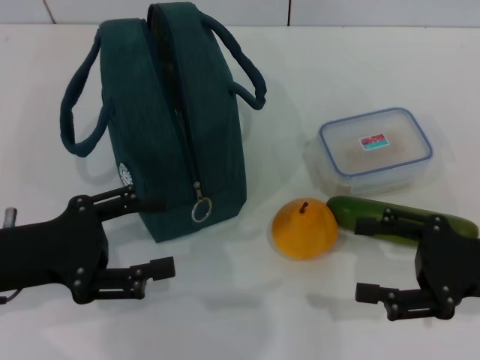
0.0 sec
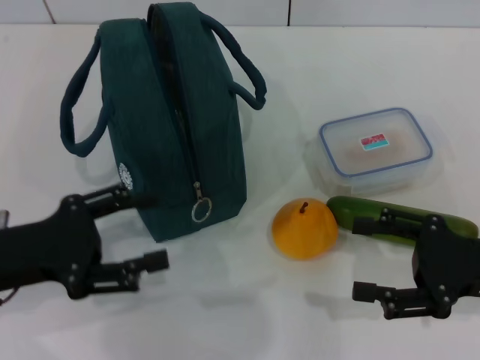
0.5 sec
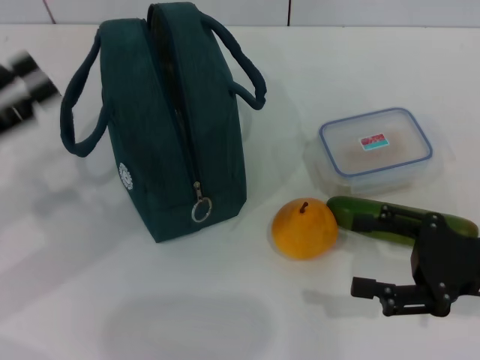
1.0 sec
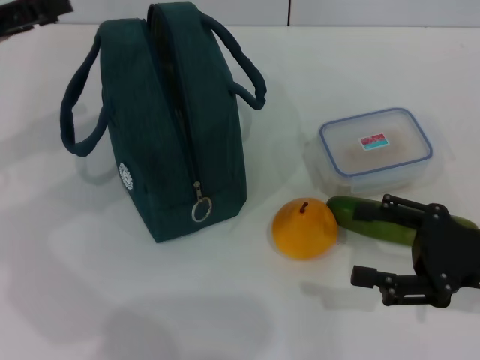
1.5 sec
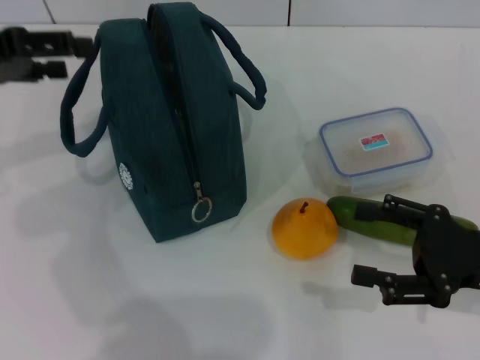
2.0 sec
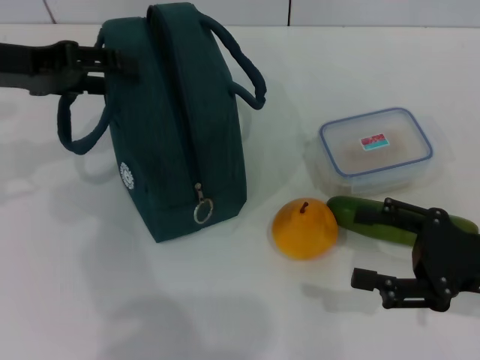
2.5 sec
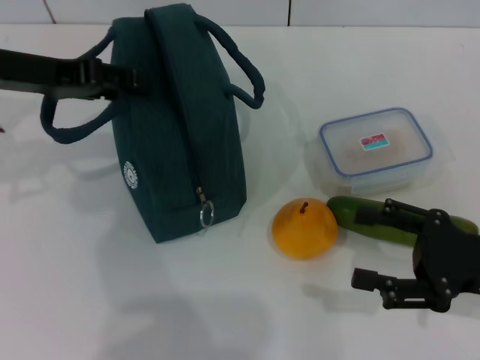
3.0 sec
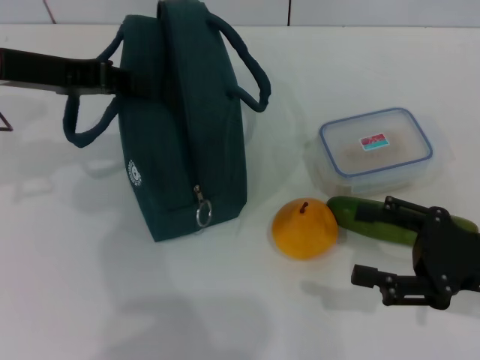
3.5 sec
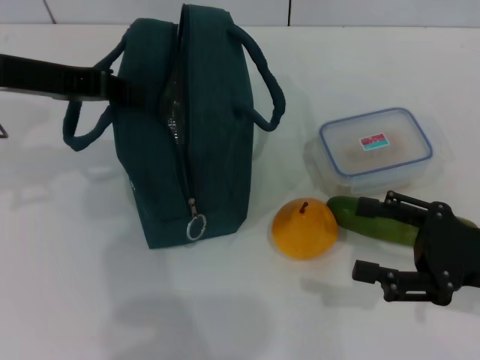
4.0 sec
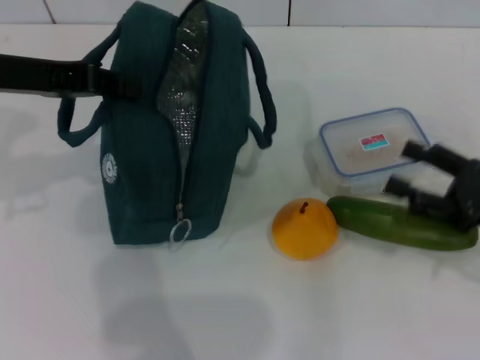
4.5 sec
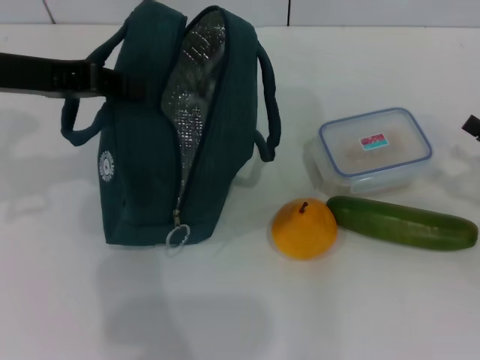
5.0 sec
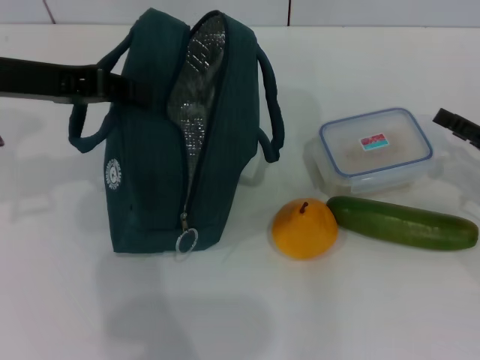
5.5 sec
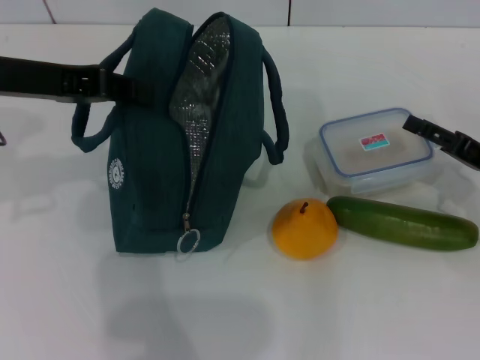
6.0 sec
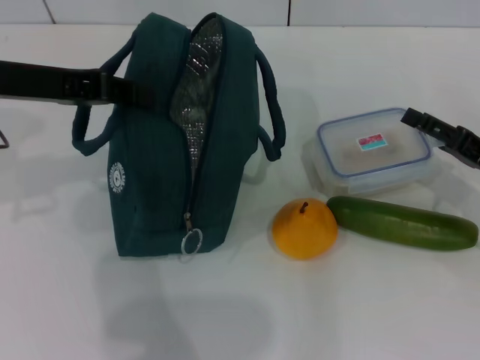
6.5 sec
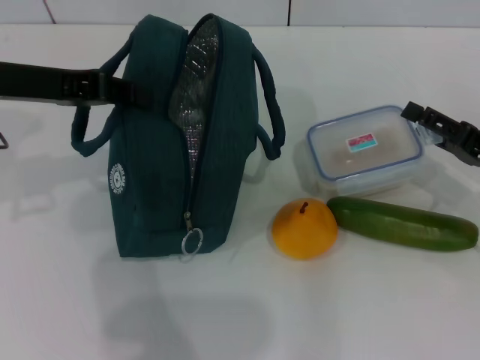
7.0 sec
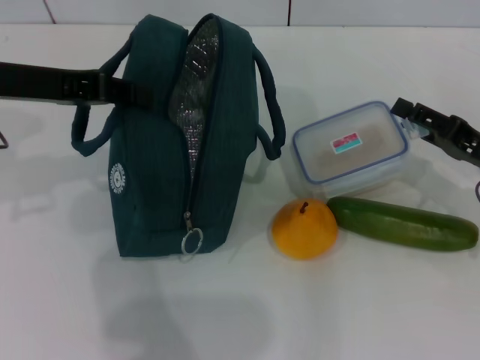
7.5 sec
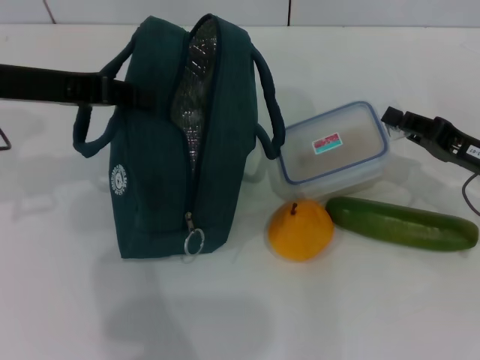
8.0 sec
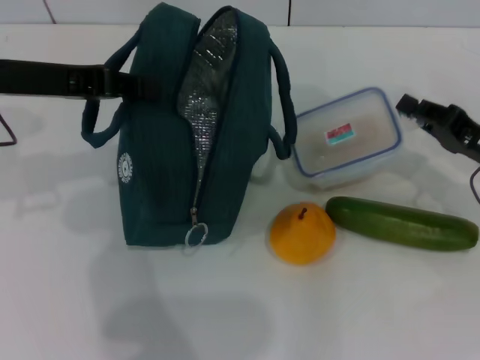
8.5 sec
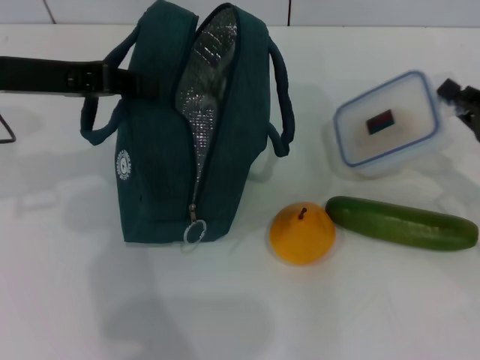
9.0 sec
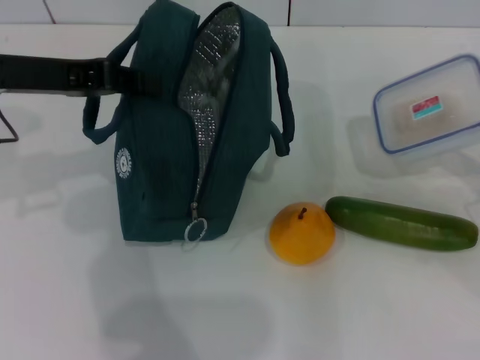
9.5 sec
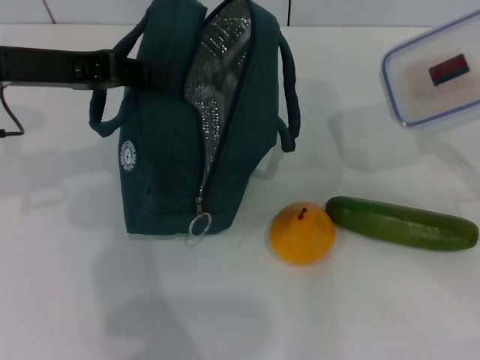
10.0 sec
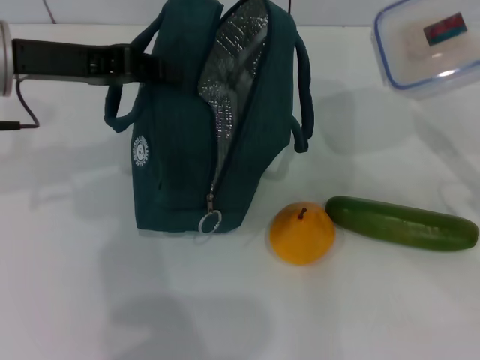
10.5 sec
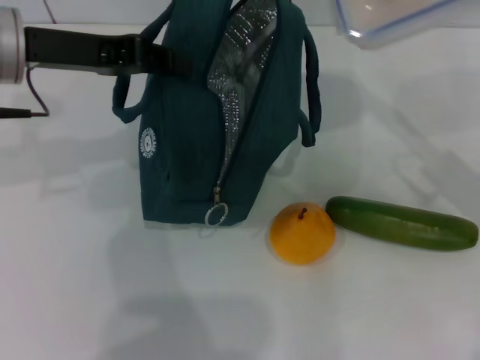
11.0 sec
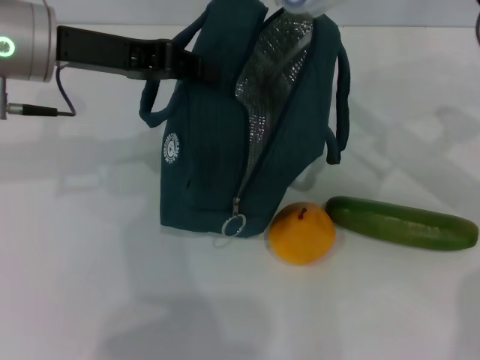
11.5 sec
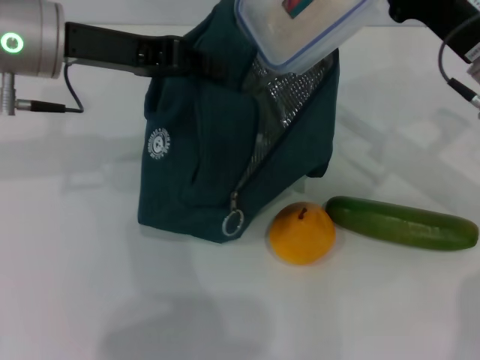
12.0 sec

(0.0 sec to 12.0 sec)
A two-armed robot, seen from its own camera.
Step, 0.0 sec - 3.0 sec: Hold the lunch bag with your left hand.
Step, 4.0 sec - 8.0 sec: Pick up the lunch box with your right hand.
0.0 sec - 2.0 sec: The left gripper shifts approximately 15 cm upward and forward.
2.0 sec - 4.0 sec: The left gripper shifts some 5 cm to the right, and closes its fingers.
4.0 sec - 6.0 sec: The right gripper moves forward, some 10 cm.
6.0 sec - 8.0 sec: The right gripper closes up.
8.0 sec - 10.0 sec: The right gripper moves to the right, approximately 5 cm.
10.0 sec - 12.0 sec: The left gripper ends up roughly 5 cm from where it was; the right gripper moves to the left, forward and upward, about 15 cm.

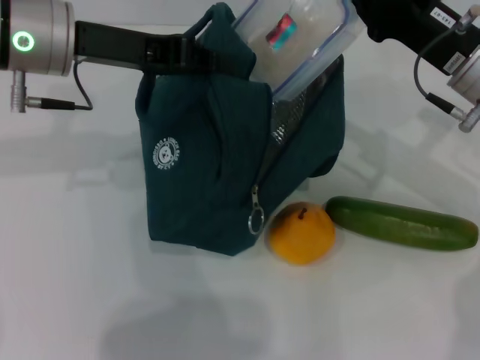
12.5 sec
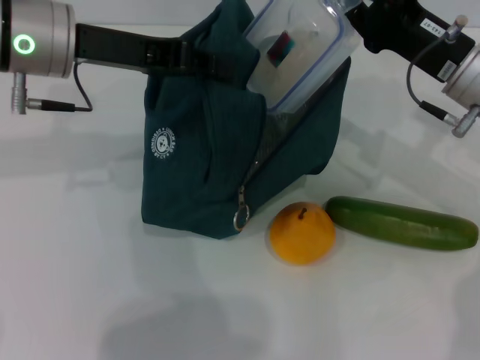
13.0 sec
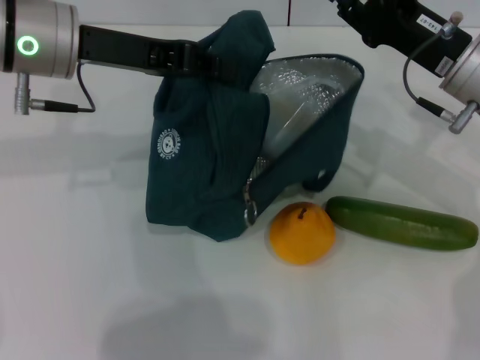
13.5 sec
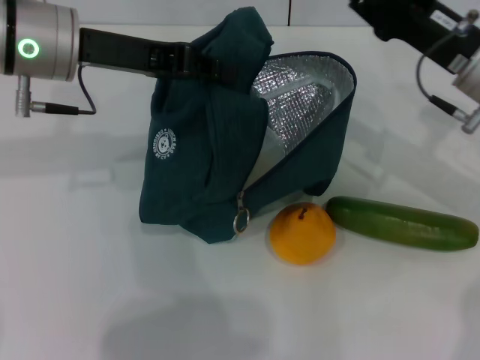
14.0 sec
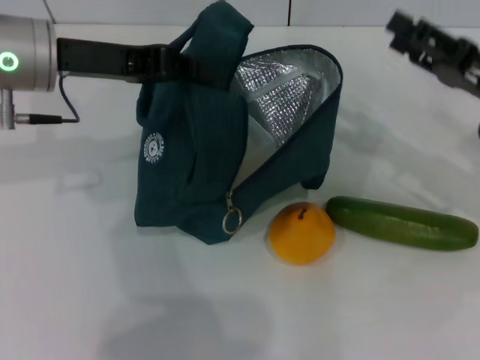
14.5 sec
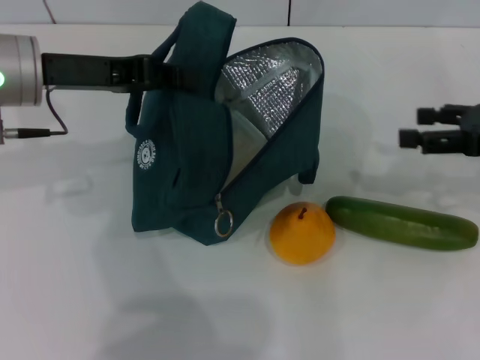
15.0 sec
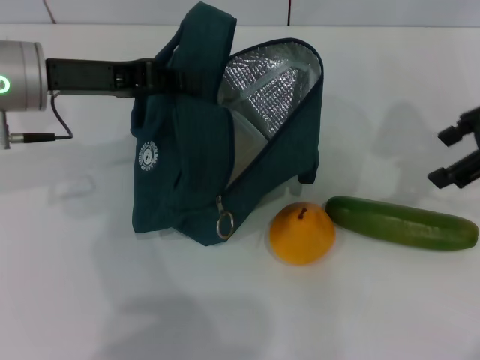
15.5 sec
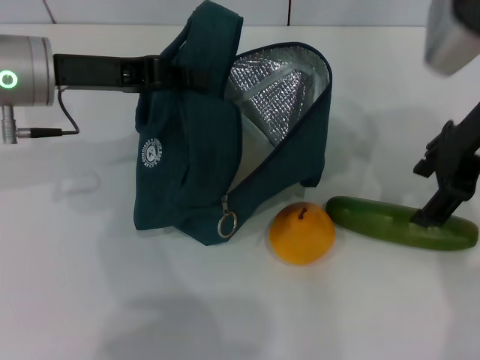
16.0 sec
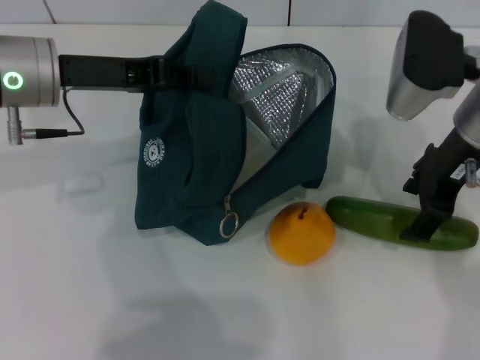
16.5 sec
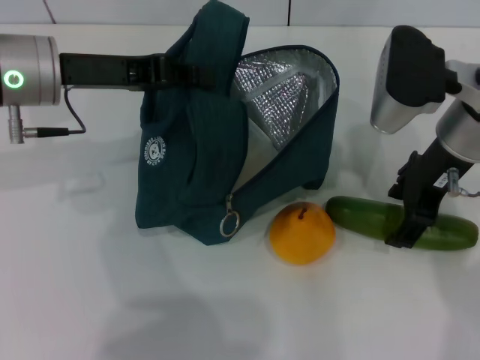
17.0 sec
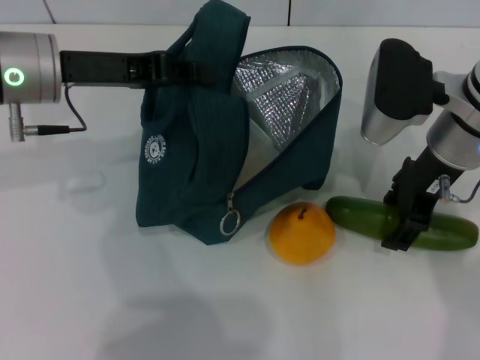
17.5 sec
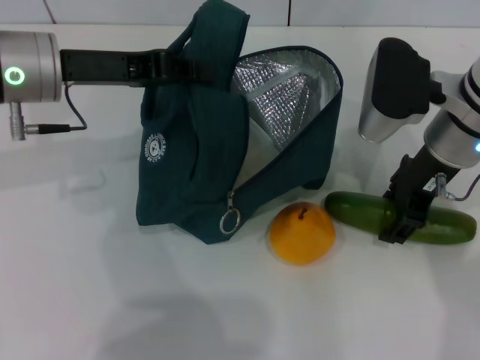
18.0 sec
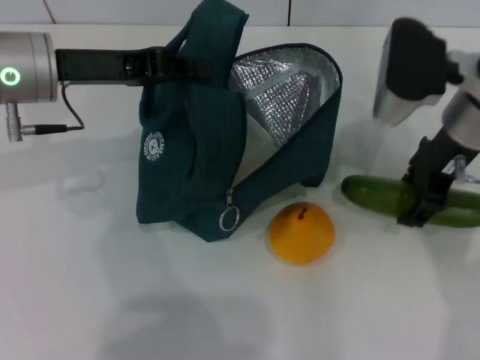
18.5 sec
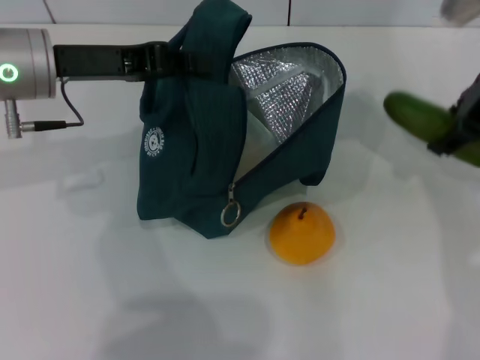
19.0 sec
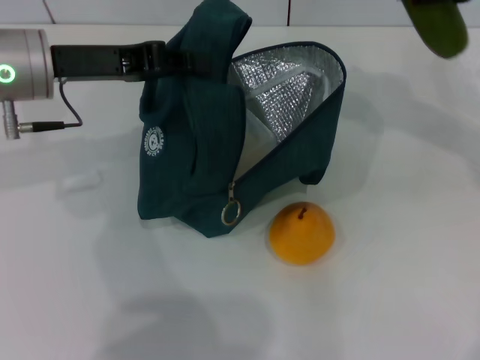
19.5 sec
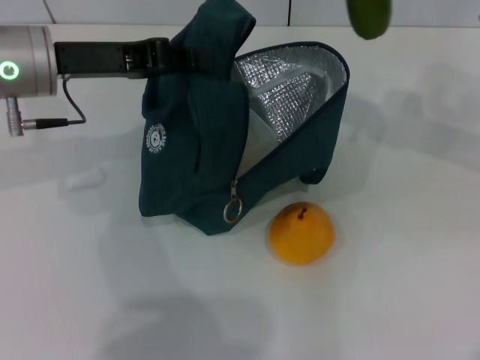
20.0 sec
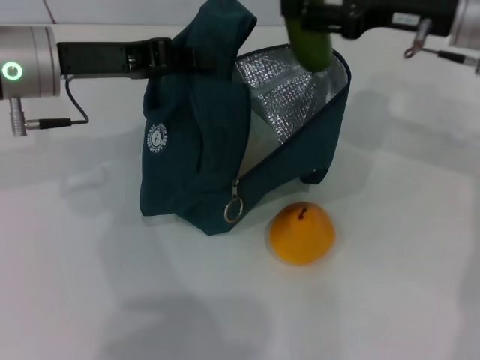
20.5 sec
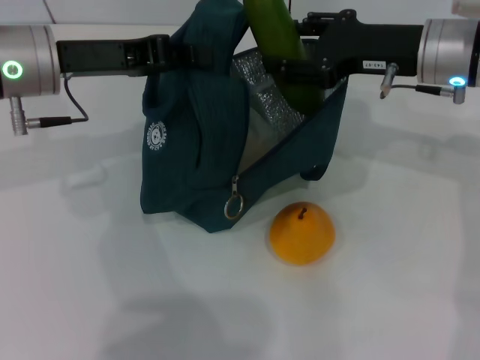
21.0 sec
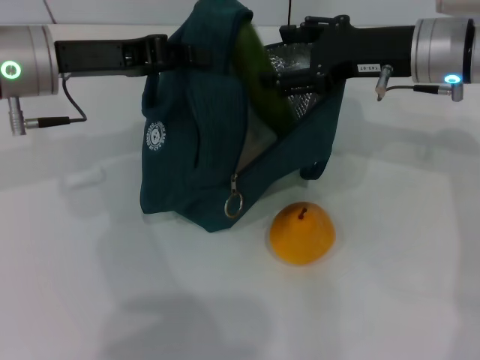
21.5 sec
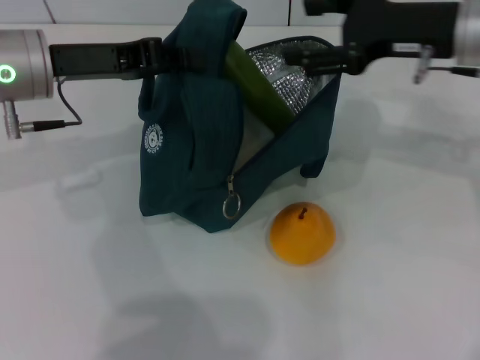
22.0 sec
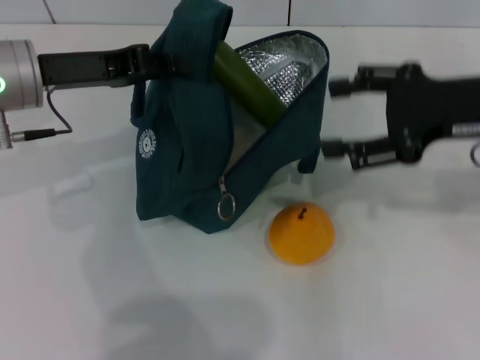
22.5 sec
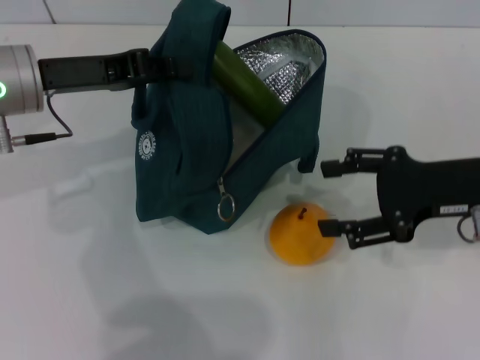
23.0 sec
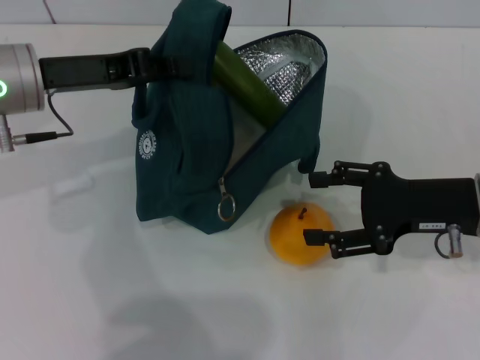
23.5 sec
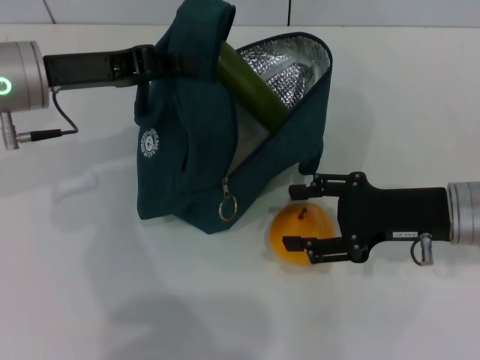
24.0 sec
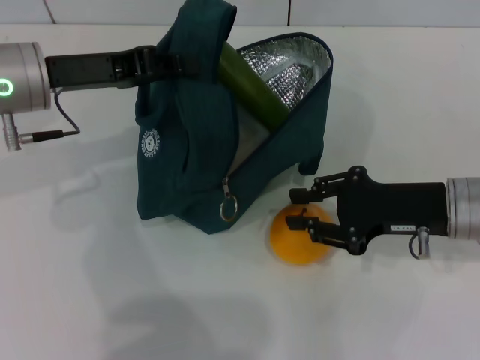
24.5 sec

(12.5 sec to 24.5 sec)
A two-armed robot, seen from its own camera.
Step, 14.0 sec - 18.0 sec: Pick up the cucumber with your right hand.
Step, 18.5 sec - 21.5 sec: Put the cucumber into the lunch bag with your right hand.
12.5 sec - 14.5 sec: The right gripper heads to the right, covering about 5 cm, and opens up.
14.5 sec - 16.5 sec: The right gripper heads to the left and upward, covering roughly 10 cm.
16.5 sec - 18.5 sec: The grippers stay close to where they were, moving slightly.
18.5 sec - 20.5 sec: The right gripper moves approximately 10 cm upward and comes back.
20.5 sec - 22.5 sec: The right gripper travels backward by approximately 10 cm.
22.5 sec - 24.5 sec: The right gripper shifts some 10 cm downward.

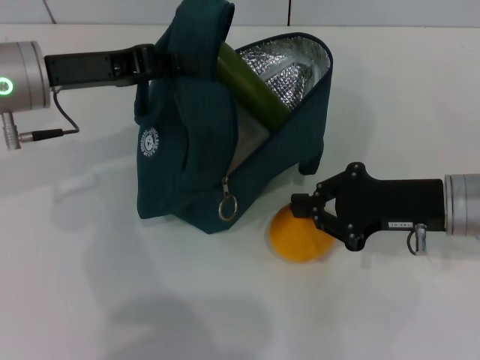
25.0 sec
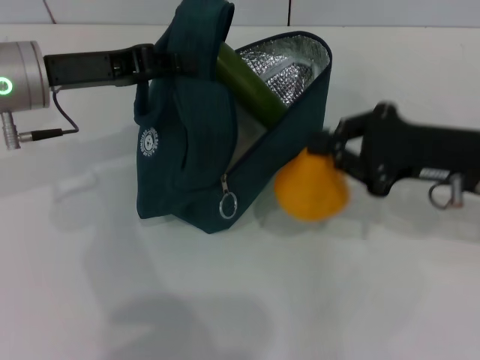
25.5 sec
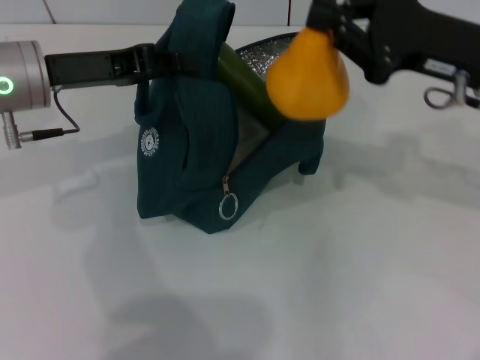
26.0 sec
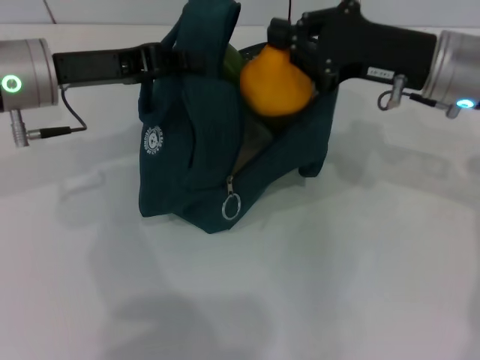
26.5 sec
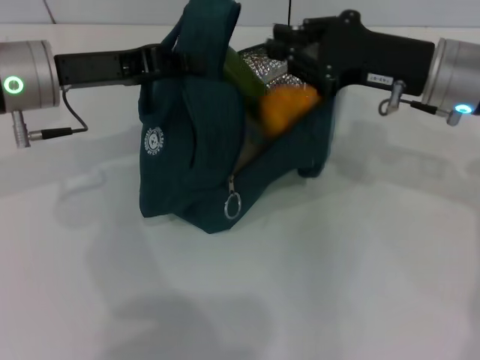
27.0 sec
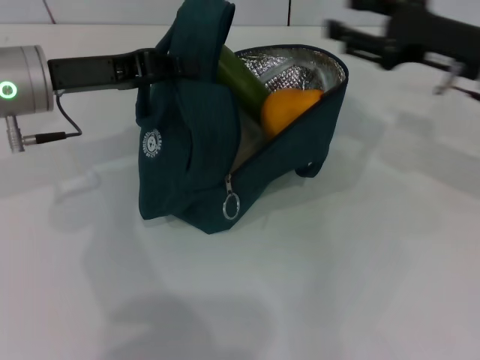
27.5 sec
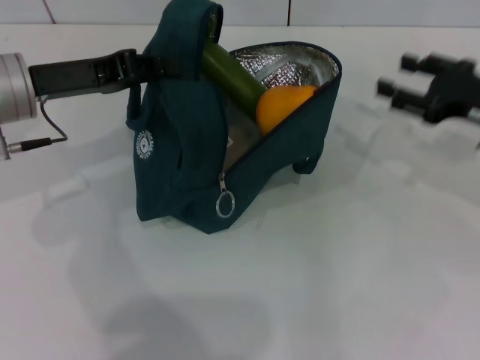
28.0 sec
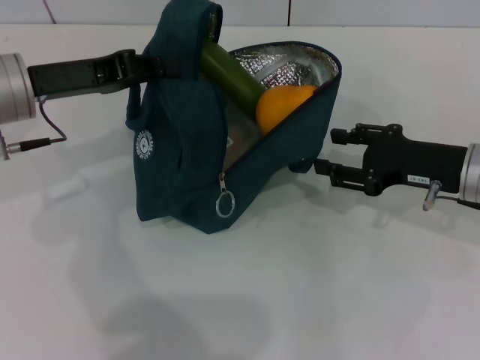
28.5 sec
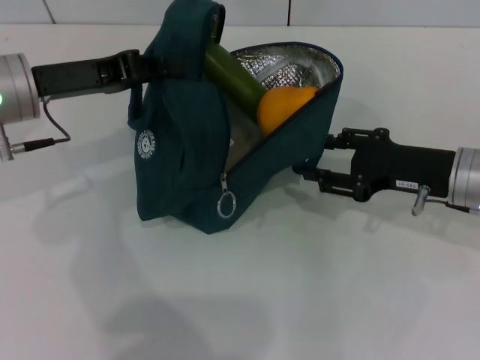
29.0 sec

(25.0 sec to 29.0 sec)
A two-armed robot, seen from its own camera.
25.0 sec - 27.0 sec: The right gripper travels upward and forward by some 10 cm.
27.0 sec - 29.0 sec: The right gripper shifts some 5 cm downward, and opens.
